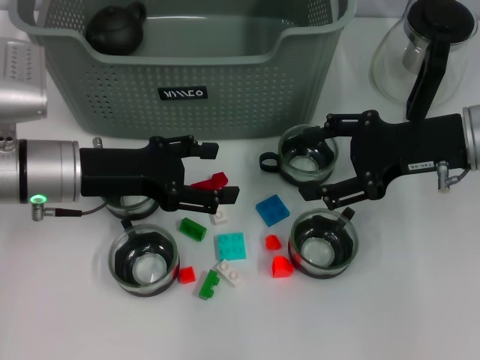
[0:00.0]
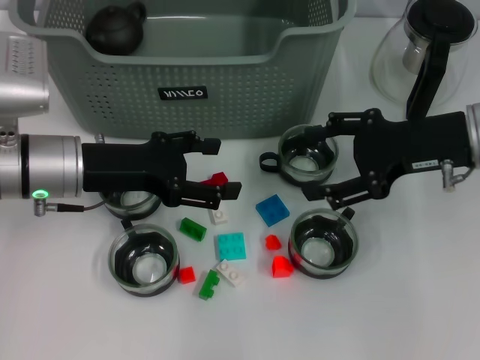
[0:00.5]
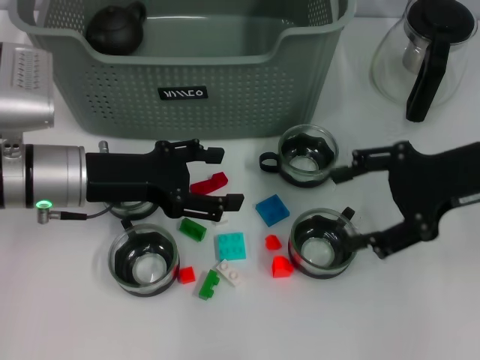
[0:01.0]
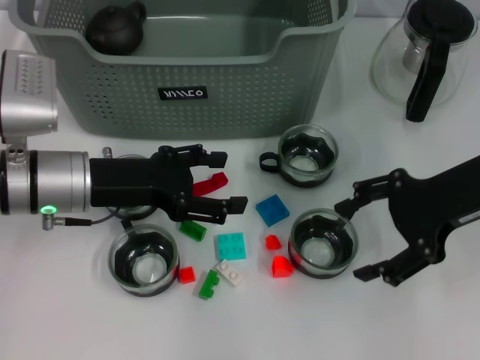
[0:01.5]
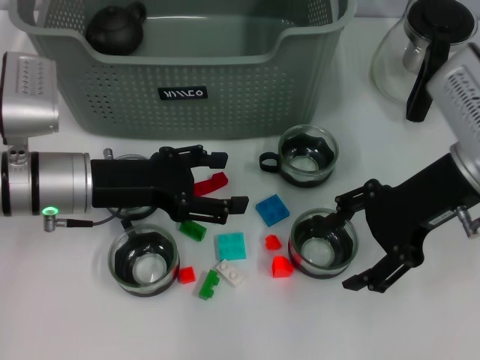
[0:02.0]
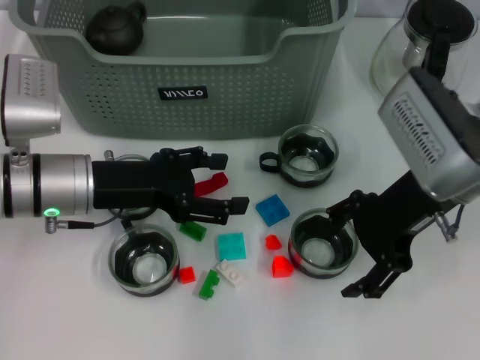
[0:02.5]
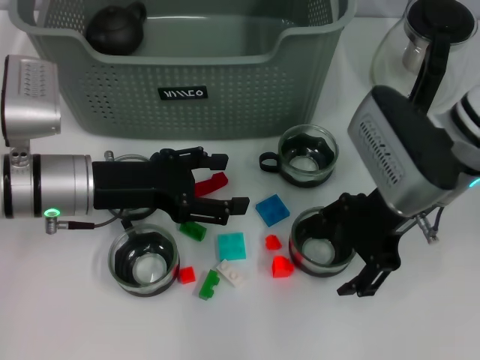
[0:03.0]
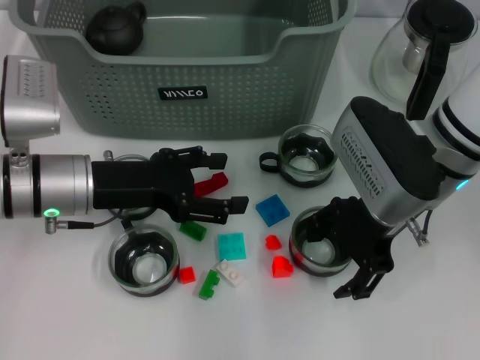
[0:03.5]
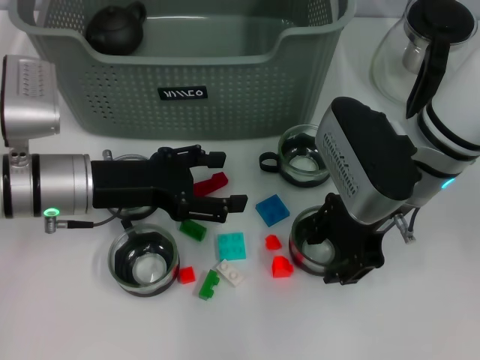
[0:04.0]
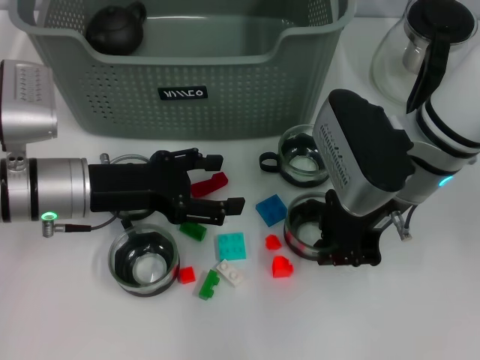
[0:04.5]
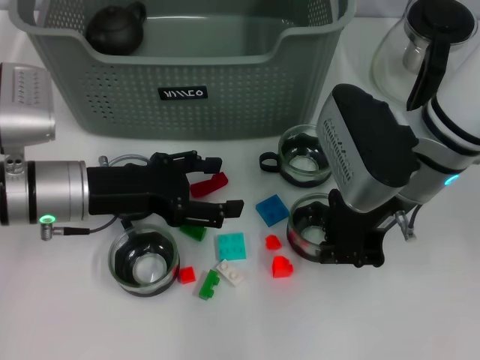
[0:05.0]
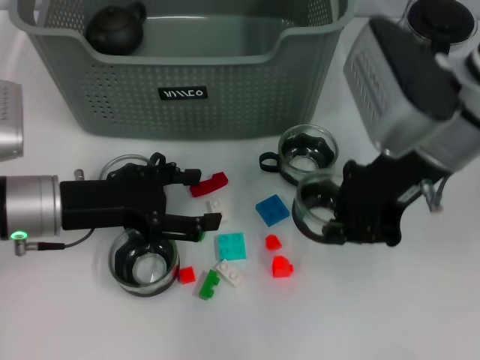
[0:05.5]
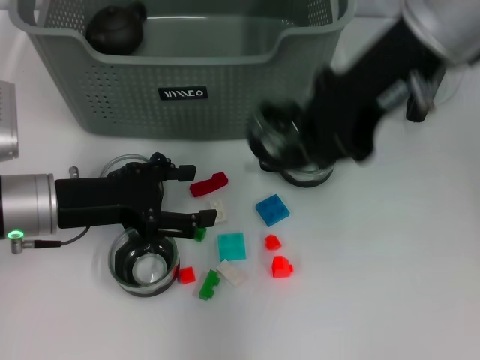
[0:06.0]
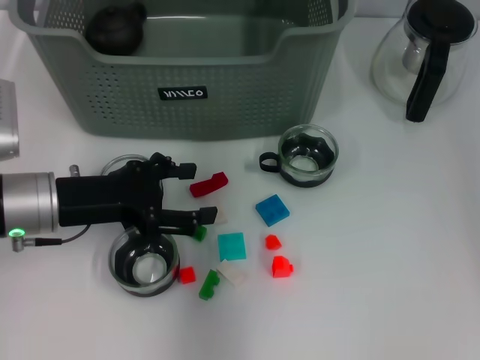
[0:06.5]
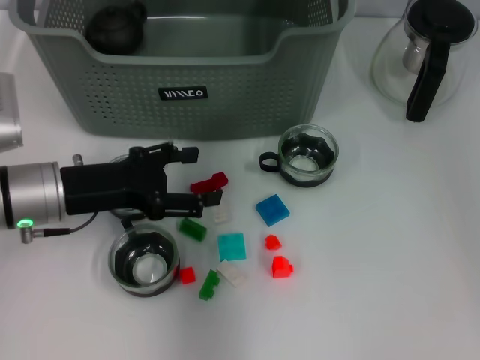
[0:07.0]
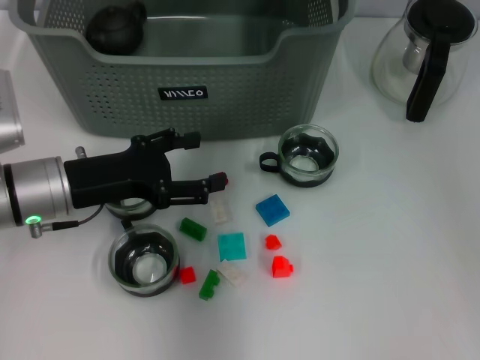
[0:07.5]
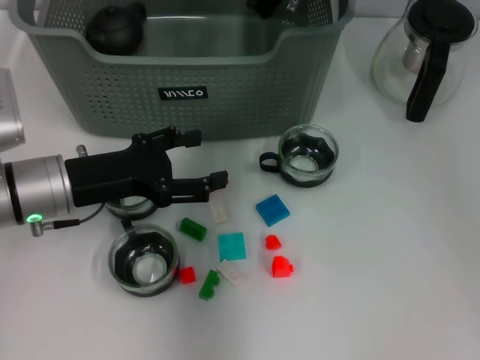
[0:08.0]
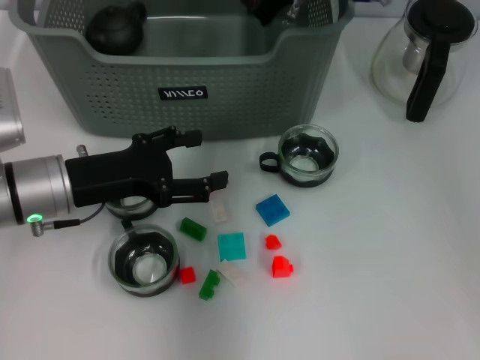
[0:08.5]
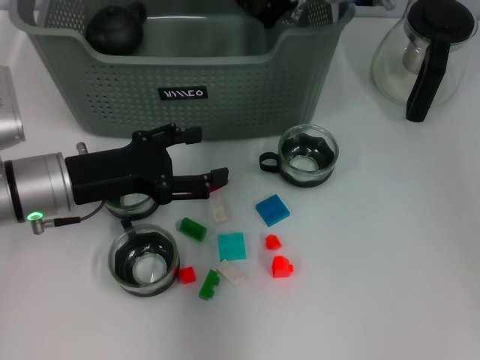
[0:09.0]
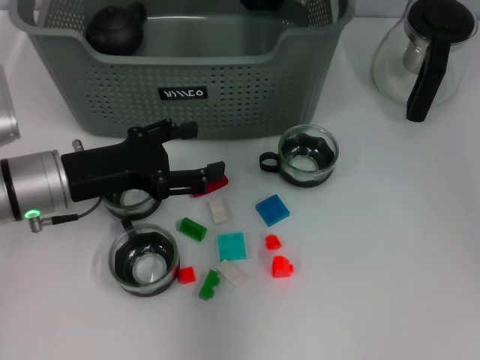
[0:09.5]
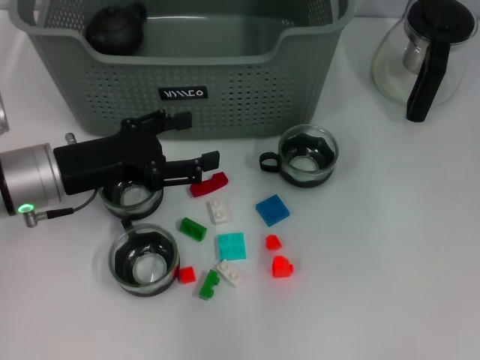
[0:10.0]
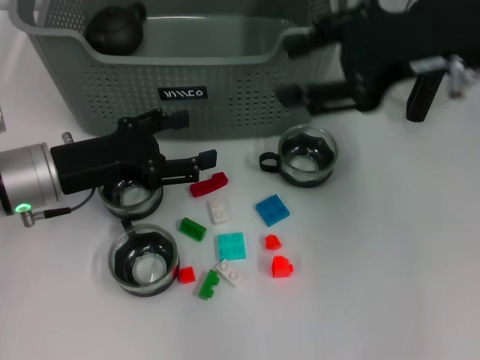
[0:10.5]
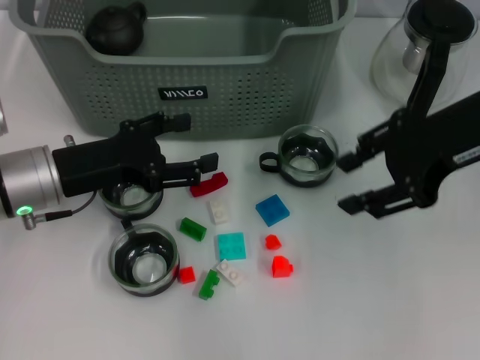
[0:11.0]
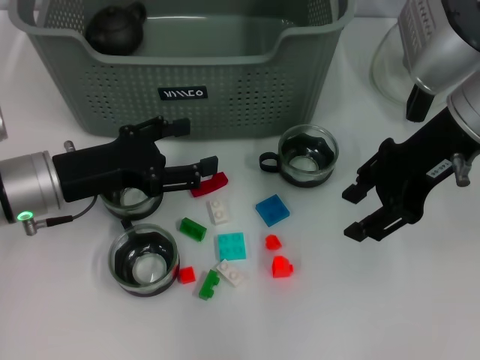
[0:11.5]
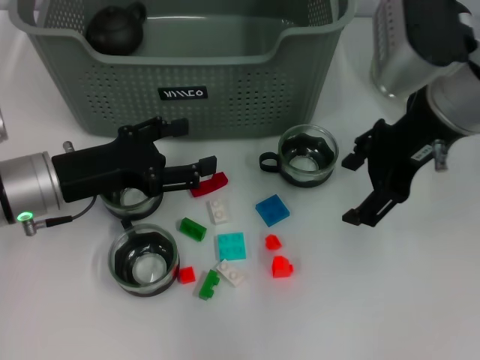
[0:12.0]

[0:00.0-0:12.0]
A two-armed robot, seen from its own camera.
Task of the whole recording: pick up the teacup on the table and place it into the storage bin, pick up the block on the table and place it into the storage bin.
Step, 0:00.0 to 0:04.5: Grasp the cup with right gripper.
Step, 0:05.0 to 0:09.5: Place the cup in the storage box with right gripper.
0:02.0 to 0:04.0: The right gripper moves to the left, roughly 5 cm.
0:04.0 to 0:06.0: The right gripper heads upward, covering approximately 15 cm, and closes.
0:06.0 to 0:08.0: The right gripper moves forward and downward, some 15 cm.
0:08.0 to 0:10.0: The right gripper shifts roughly 5 cm upward, and opens up.
0:10.0 to 0:12.0: The right gripper moves backward and downward, roughly 10 cm.

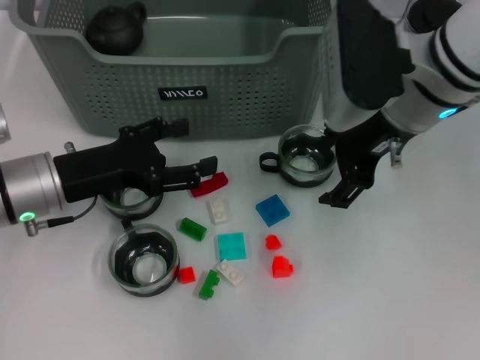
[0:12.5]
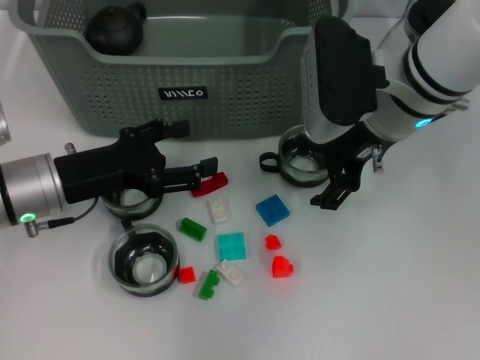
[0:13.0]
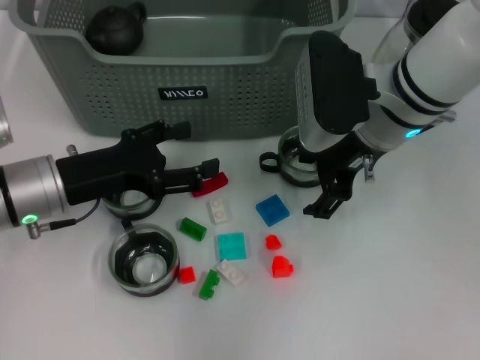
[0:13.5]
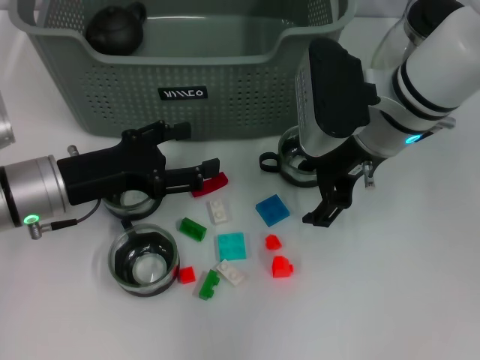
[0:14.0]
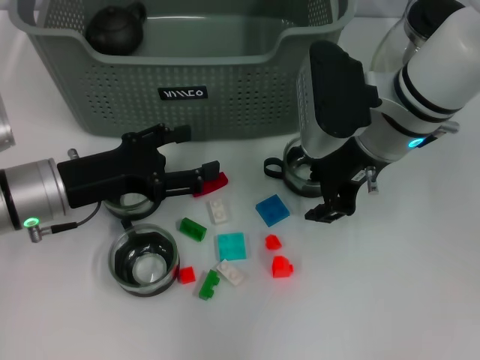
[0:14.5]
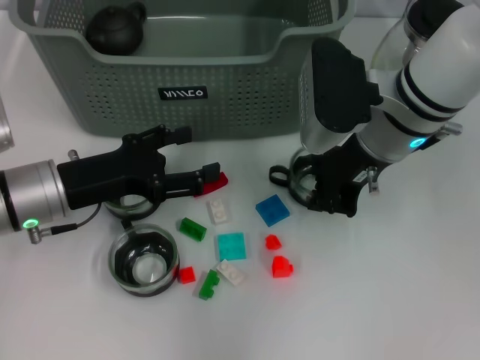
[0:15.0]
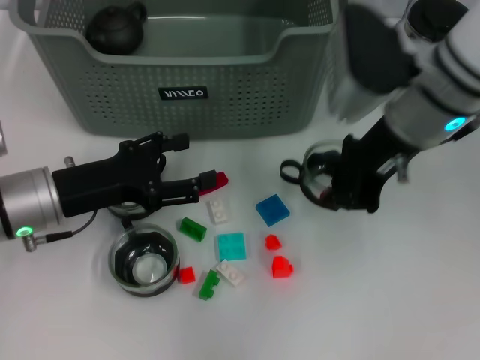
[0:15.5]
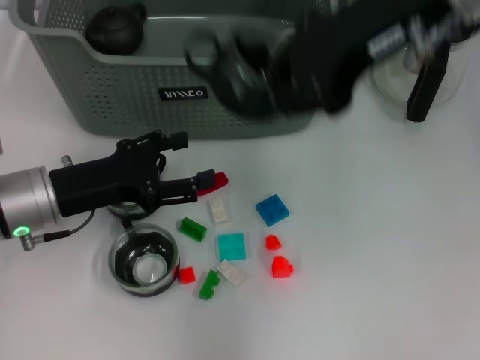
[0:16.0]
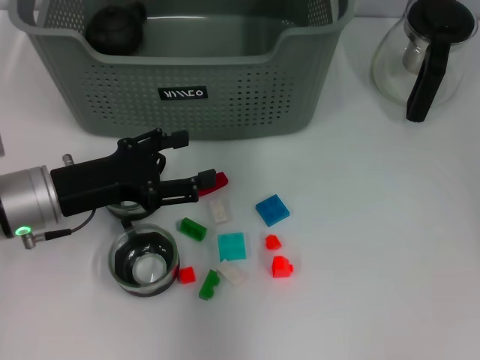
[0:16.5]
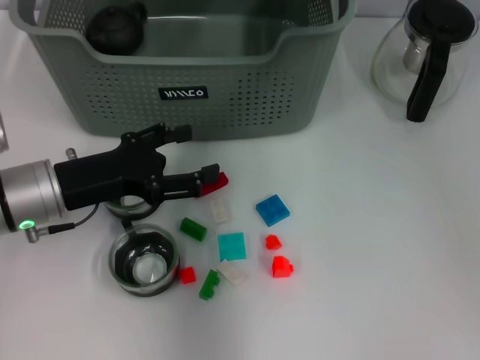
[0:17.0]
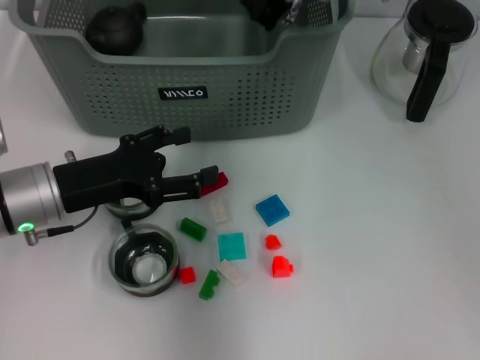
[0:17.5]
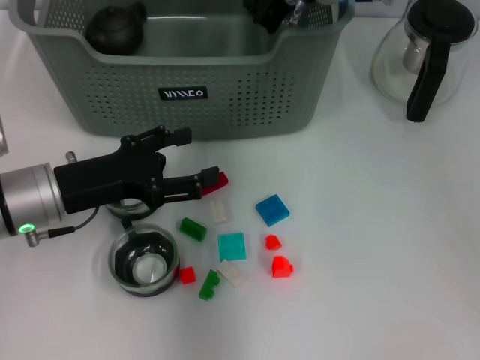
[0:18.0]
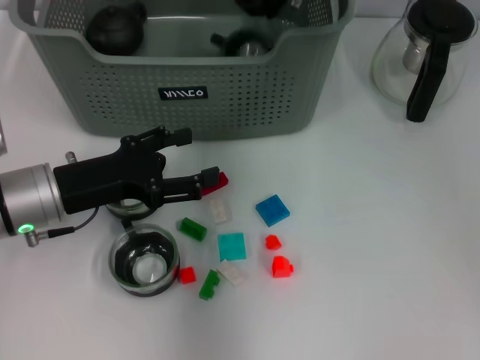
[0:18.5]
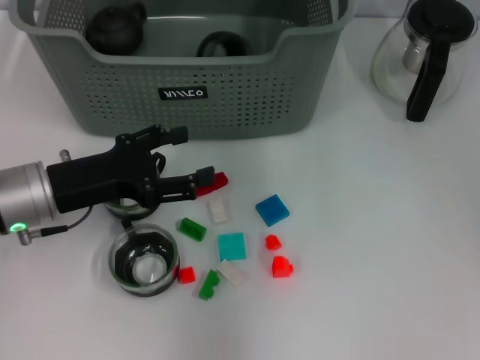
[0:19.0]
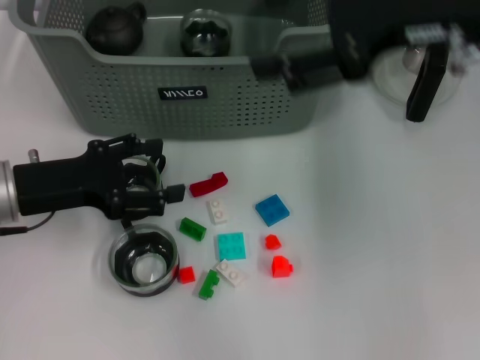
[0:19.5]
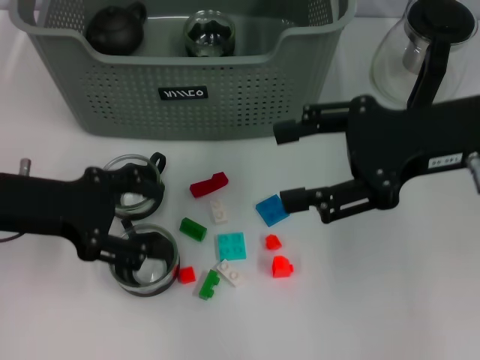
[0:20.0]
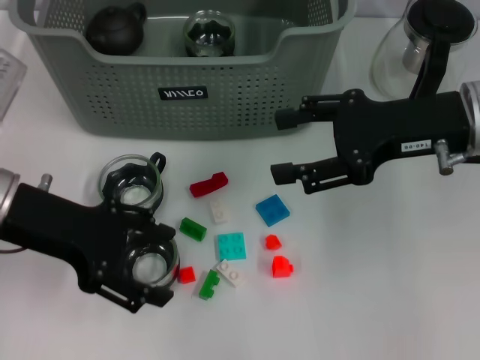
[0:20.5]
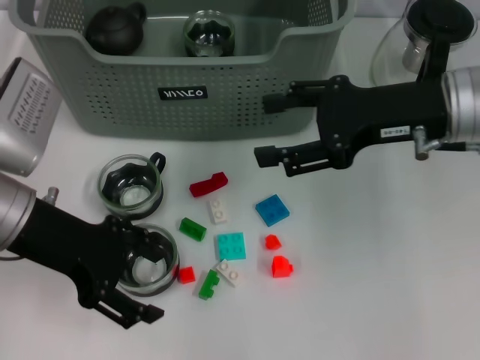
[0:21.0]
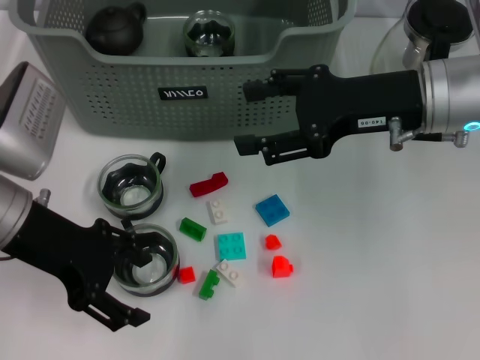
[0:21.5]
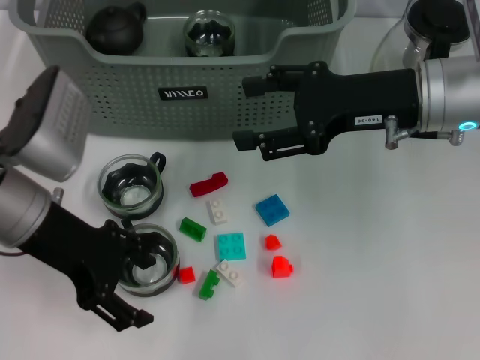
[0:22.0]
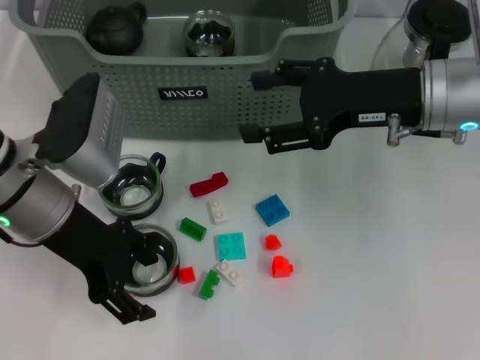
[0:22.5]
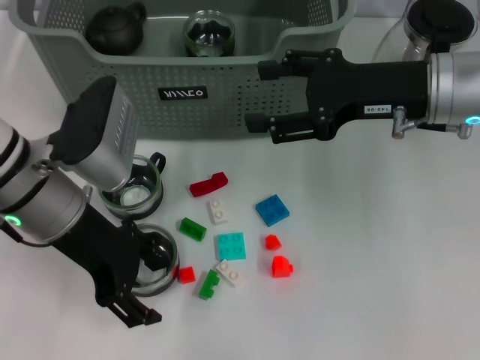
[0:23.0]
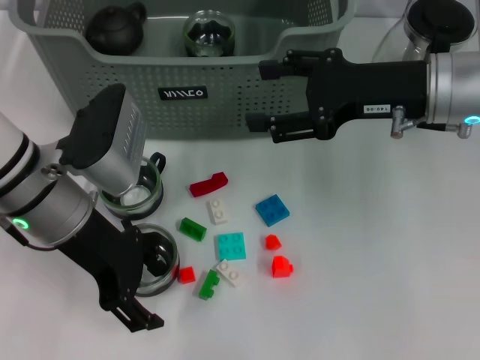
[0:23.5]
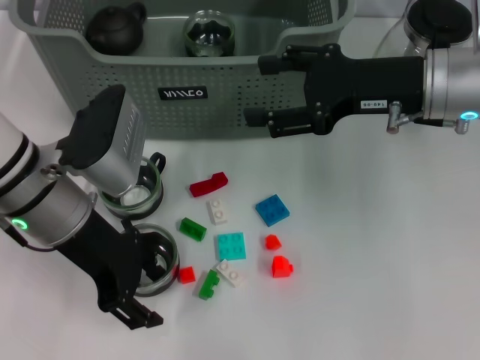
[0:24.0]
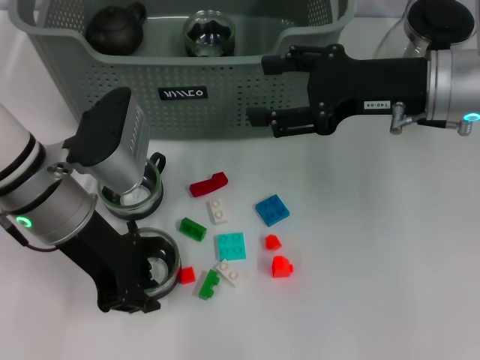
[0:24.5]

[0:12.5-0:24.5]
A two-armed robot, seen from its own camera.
Task of the whole recording: pick up the teacup on the table and place it into the storage bin, pick up the block on the table and place it into the storage bin.
Step, 0:12.5 to 0:15.0: Grasp the cup with right gripper.
Step, 0:15.5 to 0:18.5: Place the cup in the storage box with right gripper.
0:12.5 to 0:14.5: The grippers stay close to where they were, moving slightly.
0:14.5 to 0:16.5: The right gripper shifts approximately 15 cm upward and forward, and closes its fingers.
0:16.5 to 0:18.5: The right gripper moves downward, some 5 cm.
0:18.5 to 0:20.5: The right gripper heads backward and to the right, covering about 20 cm, and opens. The left gripper moves upward, approximately 10 cm.
0:22.5 to 0:24.5: The left gripper closes.

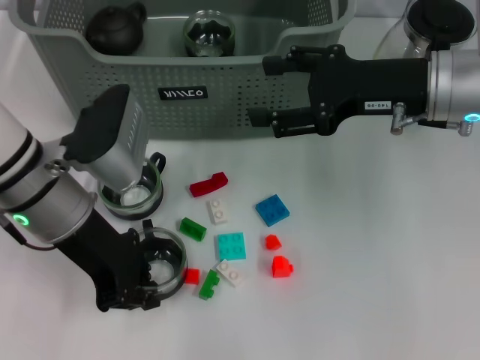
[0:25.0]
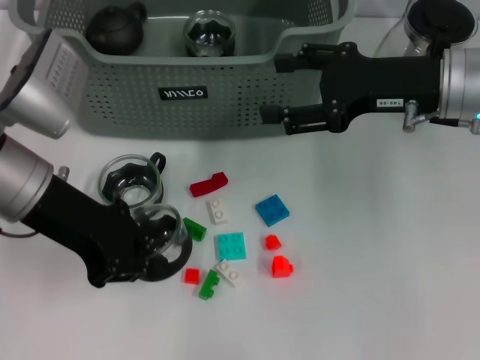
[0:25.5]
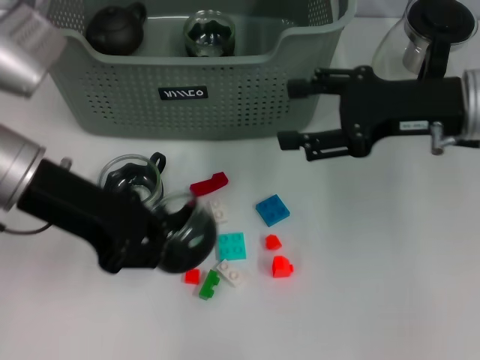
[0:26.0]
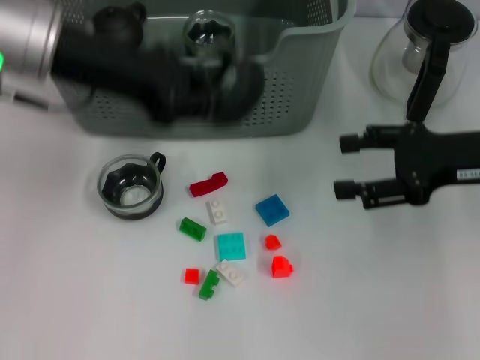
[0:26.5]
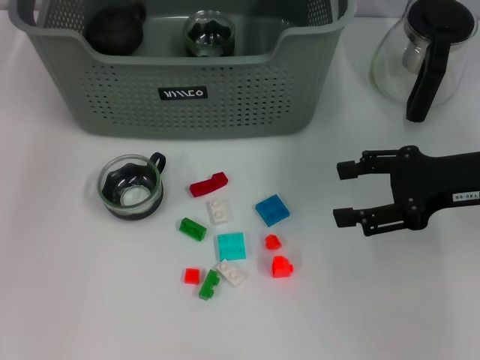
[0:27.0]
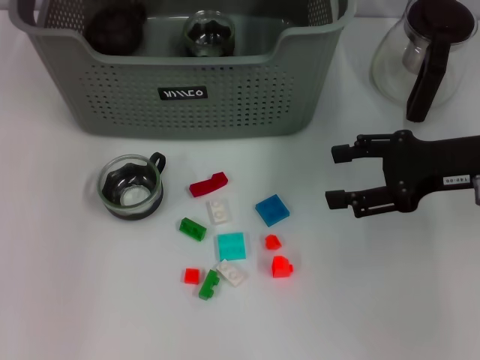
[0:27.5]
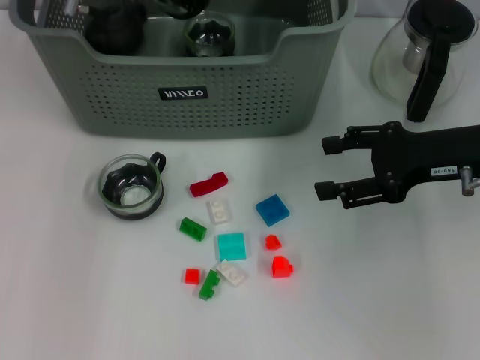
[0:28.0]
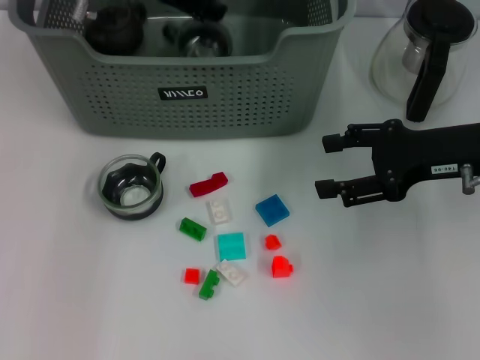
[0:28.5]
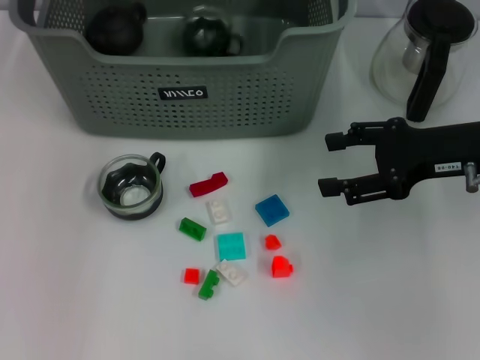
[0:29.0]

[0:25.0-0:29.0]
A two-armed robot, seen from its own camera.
Task of the whole recording: pick up the teacup on the table and place it into the storage bin, pick up the block on the table and place it into the storage bin.
Step, 0:25.0 to 0:28.5: Place the cup in the storage box with left gripper.
0:25.0 to 0:27.0: The right gripper heads to the right, covering about 10 cm; the left gripper travels upward and forward by roughly 20 cm.
0:27.0 to 0:29.0: The left gripper reaches some 10 cm downward, then returns, and opens up.
